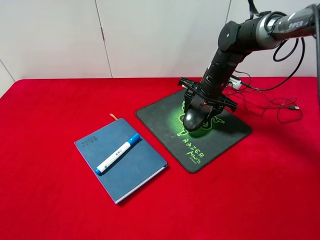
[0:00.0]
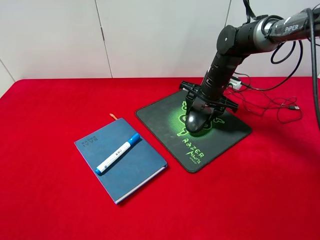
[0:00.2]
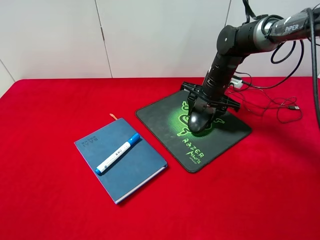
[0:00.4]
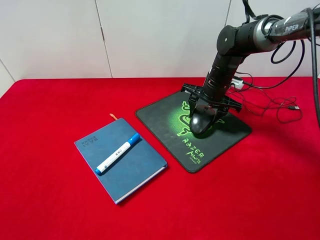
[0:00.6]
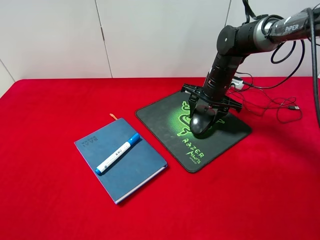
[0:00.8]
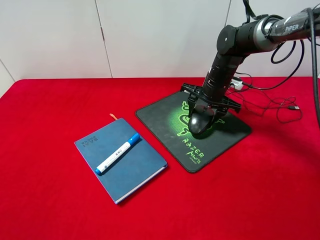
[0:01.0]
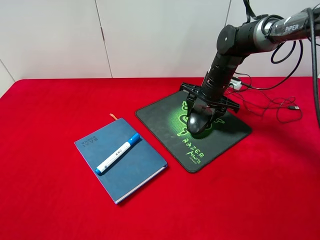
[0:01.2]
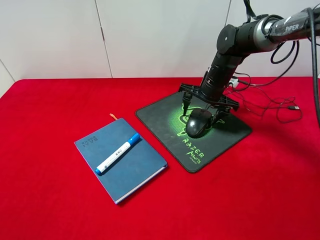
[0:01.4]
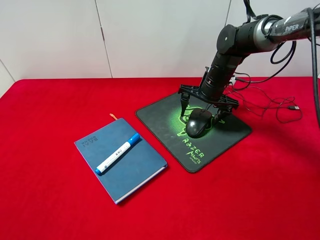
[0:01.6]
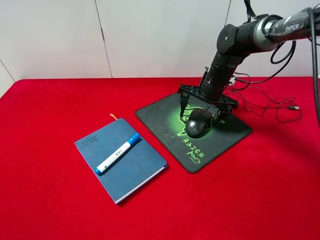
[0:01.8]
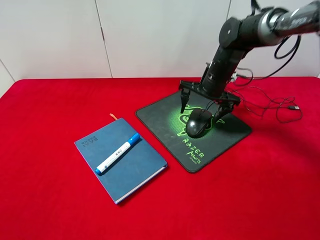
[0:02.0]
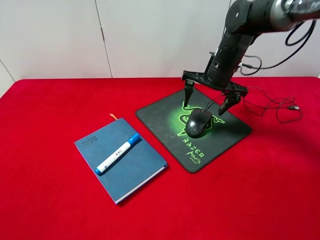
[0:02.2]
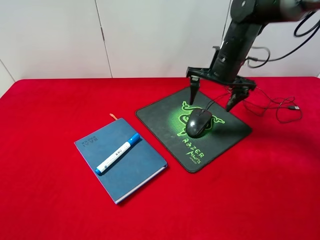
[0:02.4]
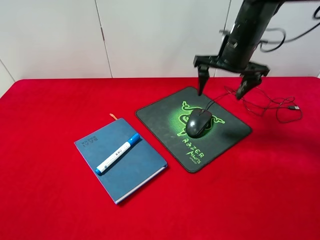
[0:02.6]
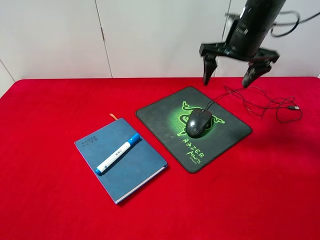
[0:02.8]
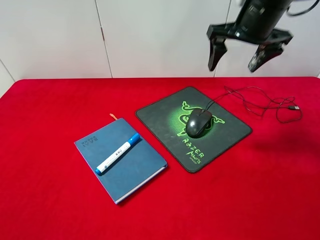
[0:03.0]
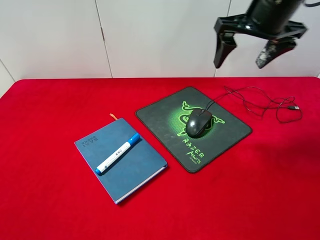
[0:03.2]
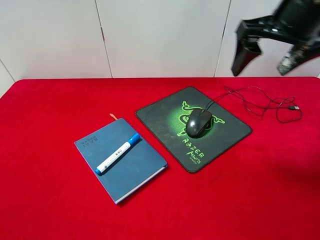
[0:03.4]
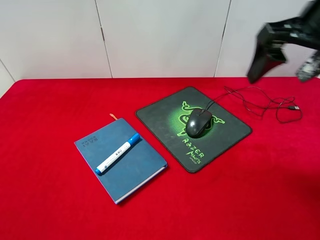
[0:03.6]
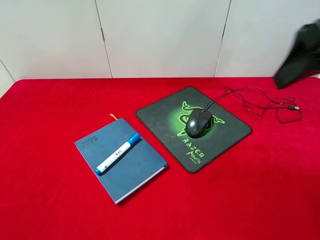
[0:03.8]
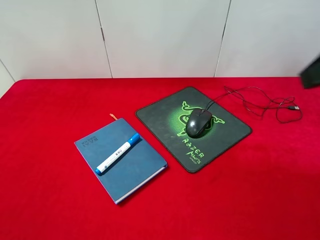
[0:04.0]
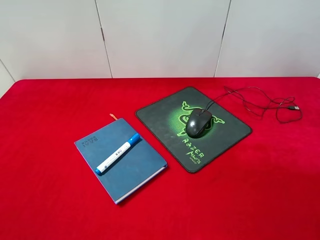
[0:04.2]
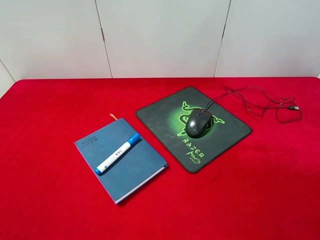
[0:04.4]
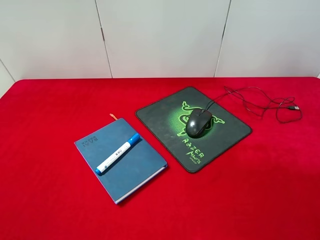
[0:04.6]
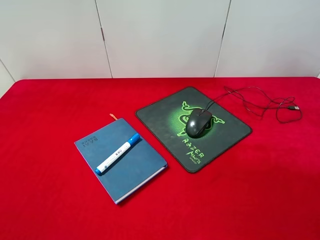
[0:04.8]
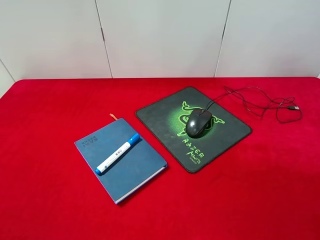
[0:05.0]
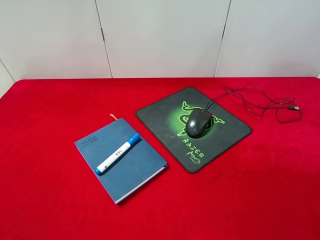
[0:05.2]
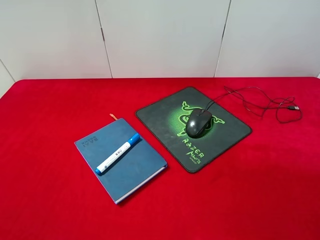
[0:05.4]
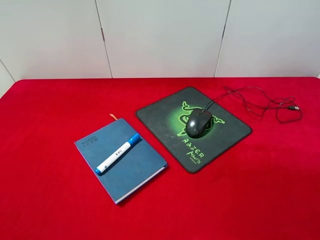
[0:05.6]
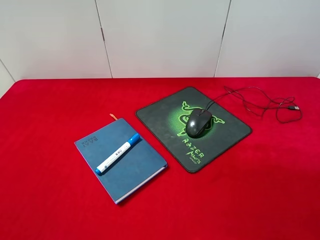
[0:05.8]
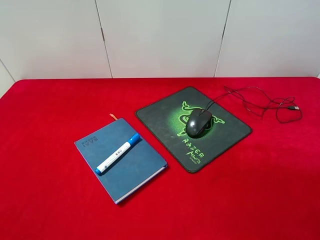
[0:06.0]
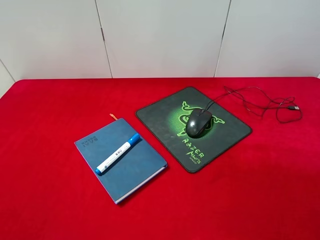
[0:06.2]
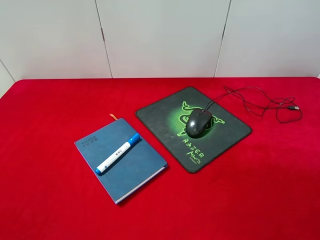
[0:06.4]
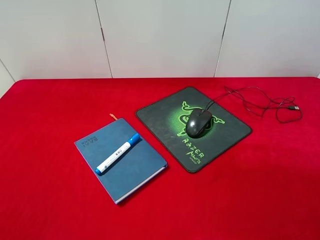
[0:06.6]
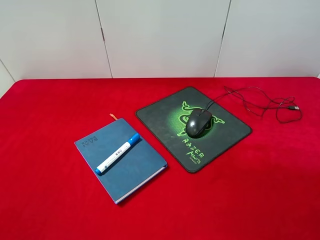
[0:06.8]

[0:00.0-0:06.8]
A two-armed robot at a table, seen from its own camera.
Step, 0:00.0 to 0:02.2: Place the mouse on the mouse pad with right gripper.
0:00.0 to 0:01.4: The right gripper opens up.
0:01.4 to 0:02.8: The right gripper moves upward, about 15 cm.
0:02.8 to 0:04.0: The right gripper moves backward and upward, roughly 25 cm.
0:05.4 to 0:06.8: The two grippers keep their place.
